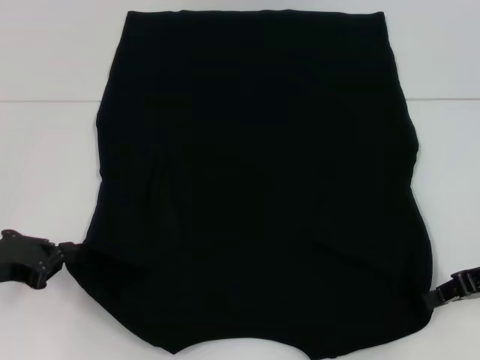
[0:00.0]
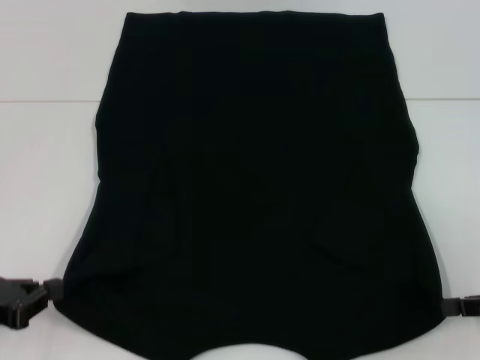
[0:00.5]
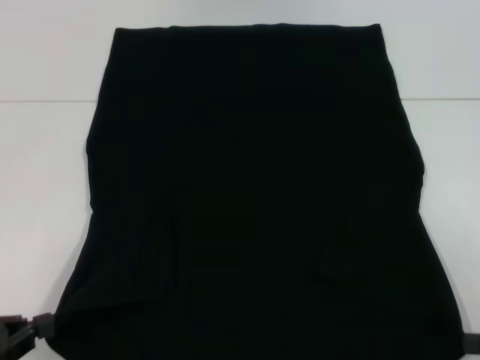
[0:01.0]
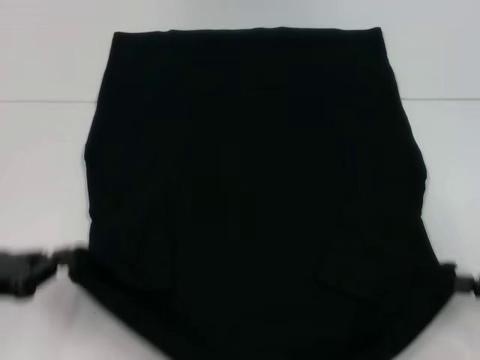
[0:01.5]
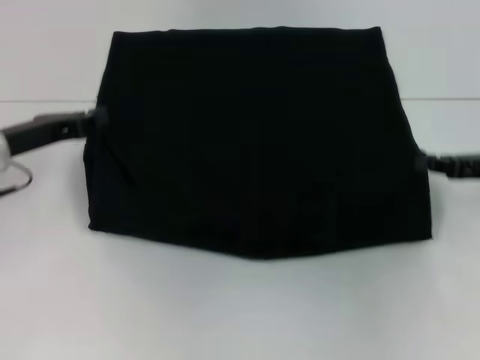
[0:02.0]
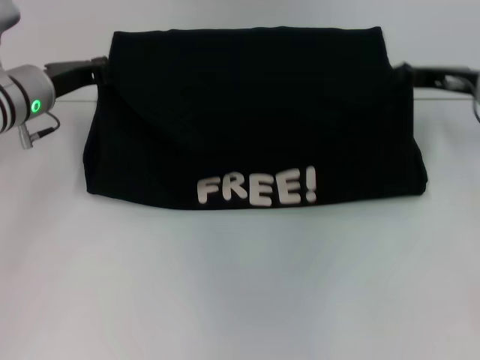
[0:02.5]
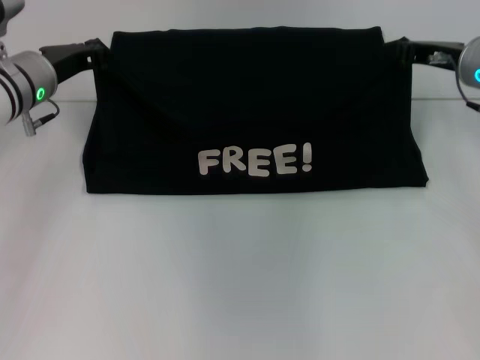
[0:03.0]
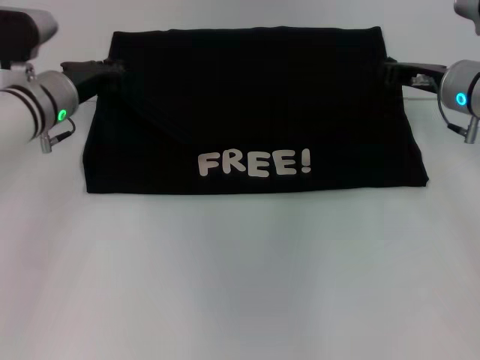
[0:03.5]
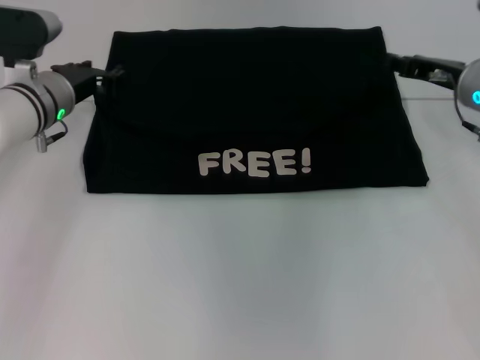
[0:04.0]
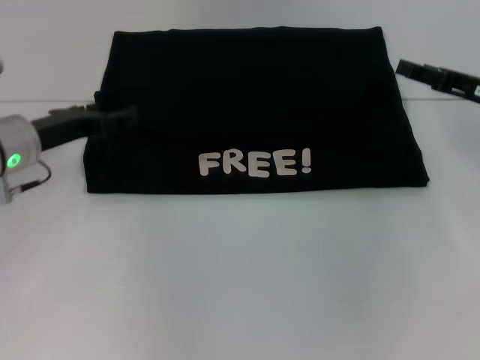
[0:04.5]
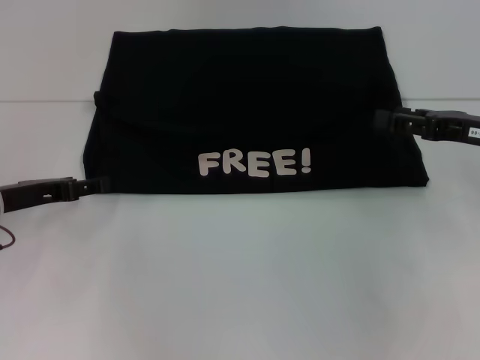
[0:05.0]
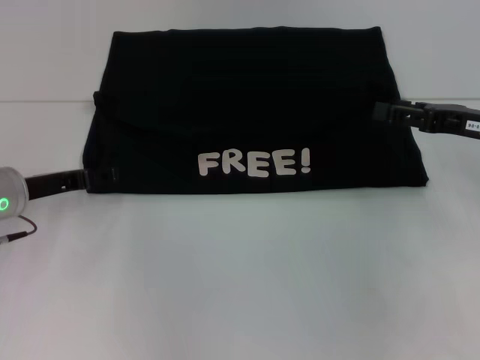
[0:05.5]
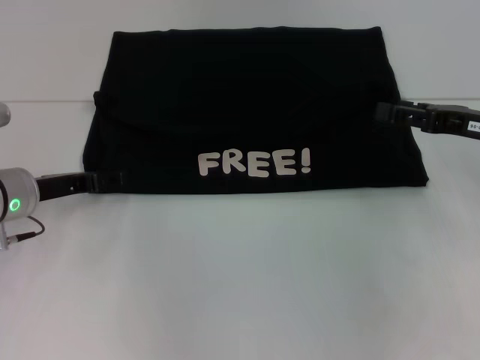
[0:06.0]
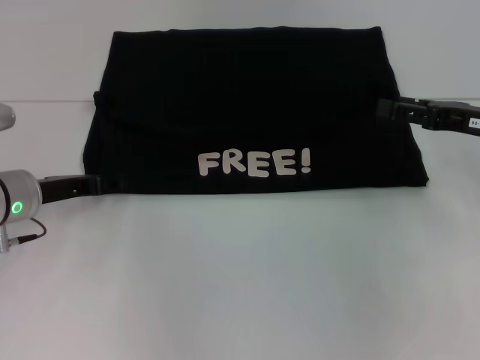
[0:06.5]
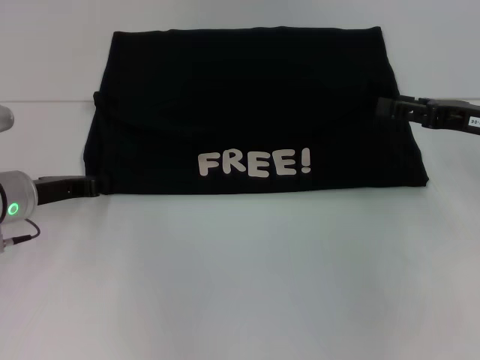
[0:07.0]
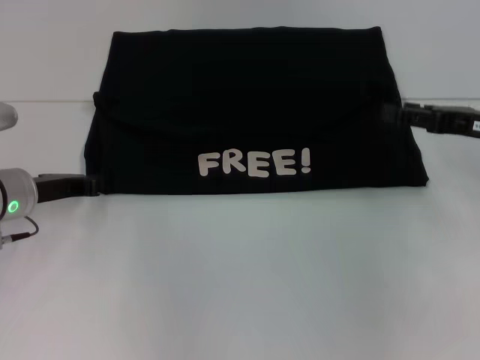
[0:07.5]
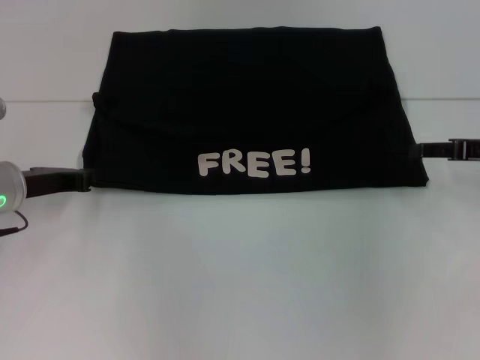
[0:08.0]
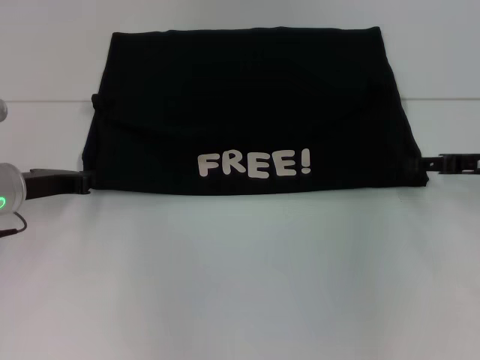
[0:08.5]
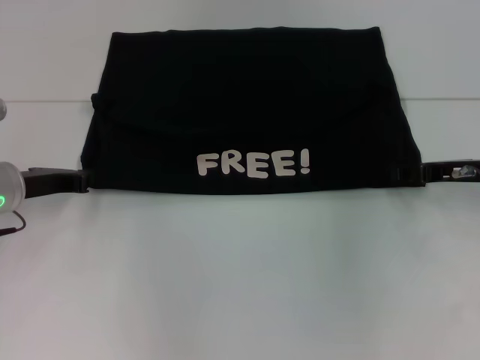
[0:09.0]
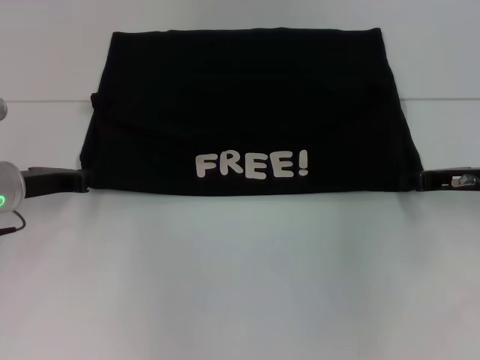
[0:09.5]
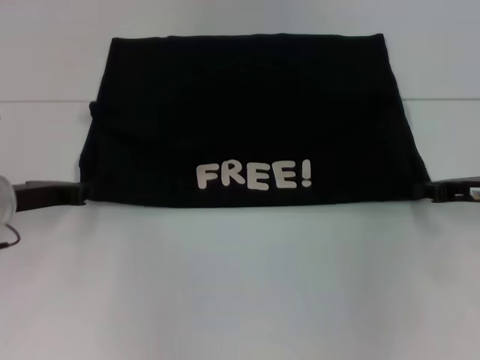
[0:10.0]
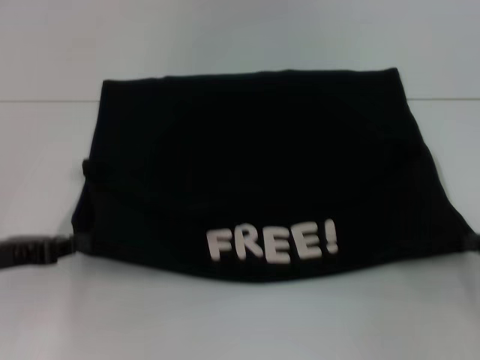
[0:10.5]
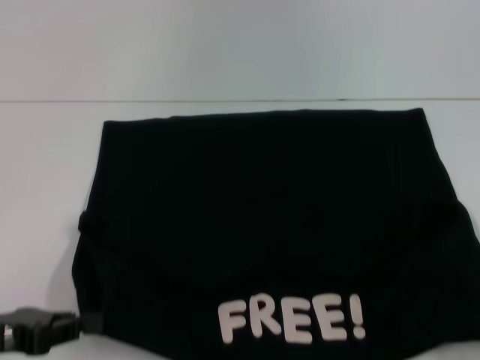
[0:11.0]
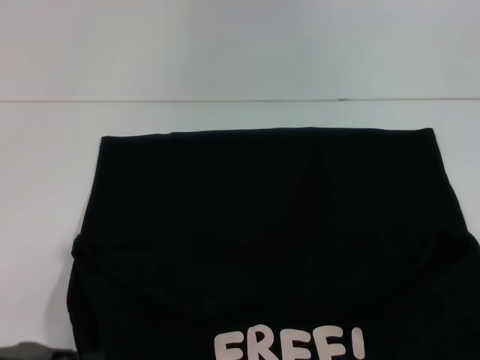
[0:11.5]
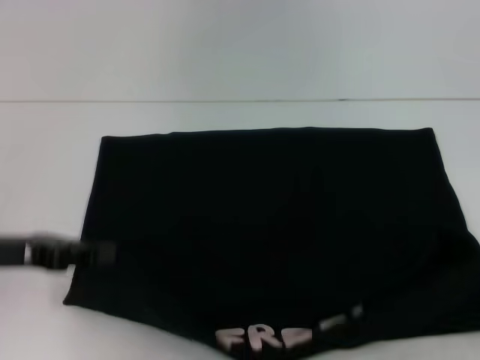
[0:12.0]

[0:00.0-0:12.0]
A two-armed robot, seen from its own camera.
Step, 0.0 to 4.0 s: Fold the clothes with your left hand.
Step, 0.0 to 4.0 s: Fold the clothes with your right hand.
Step, 4.5 to 11.0 s: Pull the clothes with your left hand.
Step, 4.5 to 11.0 s: Pull the clothes with your right hand.
0.0 to 2.0 s: The right gripper goes backward and returns, approximately 10 cm each way. The left gripper shifts approximately 10 cm forward.
2.0 to 4.0 s: The right gripper shifts about 10 cm forward and to the left, and opens its fingers. The left gripper travels forward and to the right by some 10 cm, and opens.
4.0 to 6.0 s: The grippers both shift backward by approximately 10 cm. The left gripper opens up.
6.0 to 8.0 s: The left gripper closes up.
8.0 to 10.0 s: The right gripper shifts by roughly 5 cm, and closes.
10.0 to 12.0 s: The left gripper heads backward, covering approximately 10 cm, while the right gripper travels backward and to the right by about 15 cm.

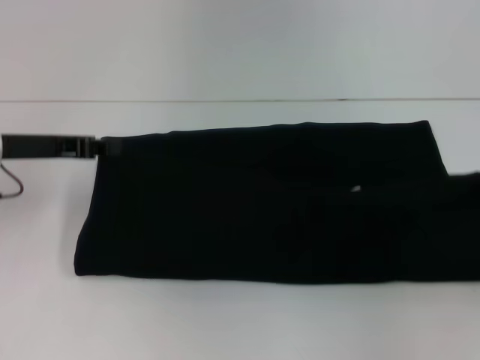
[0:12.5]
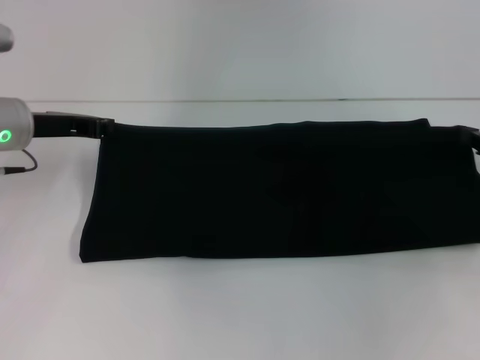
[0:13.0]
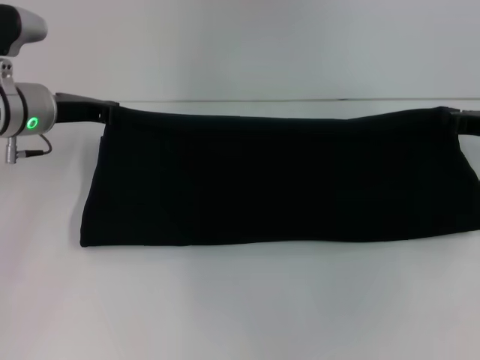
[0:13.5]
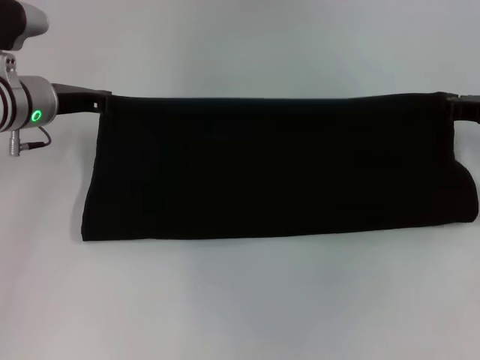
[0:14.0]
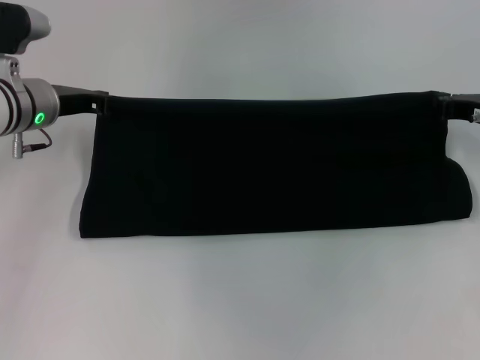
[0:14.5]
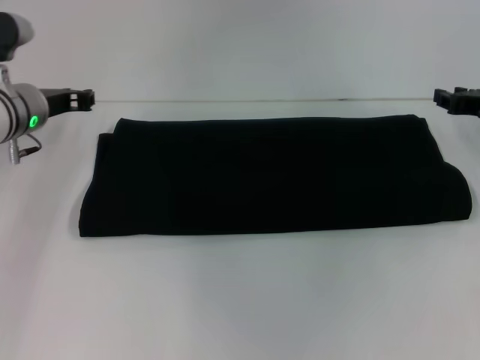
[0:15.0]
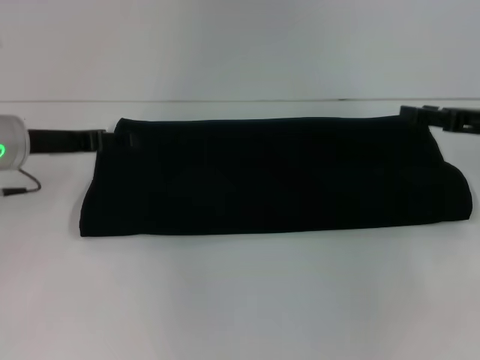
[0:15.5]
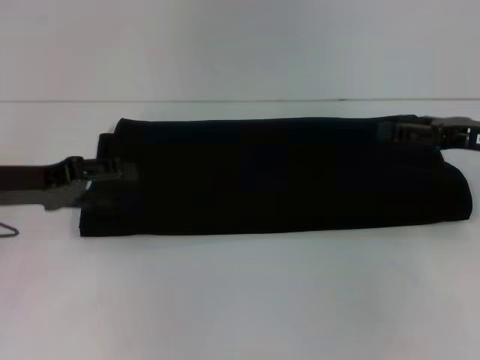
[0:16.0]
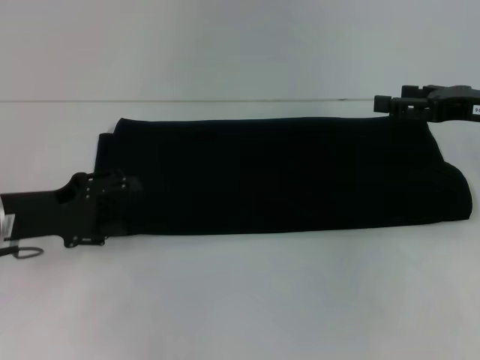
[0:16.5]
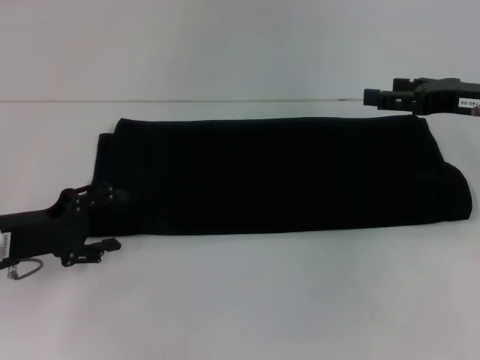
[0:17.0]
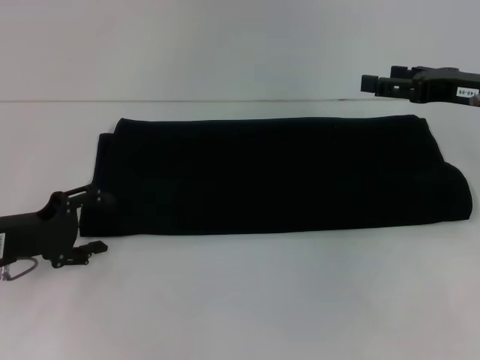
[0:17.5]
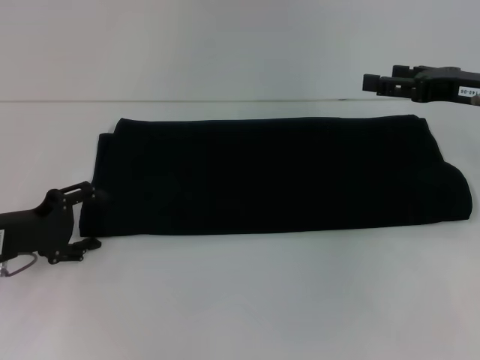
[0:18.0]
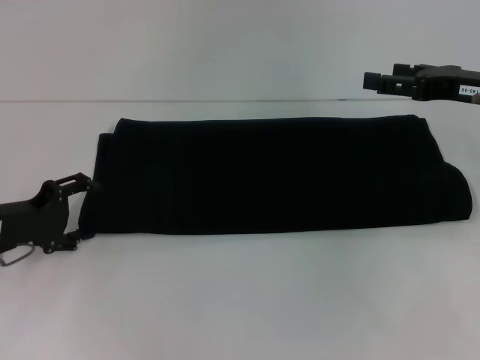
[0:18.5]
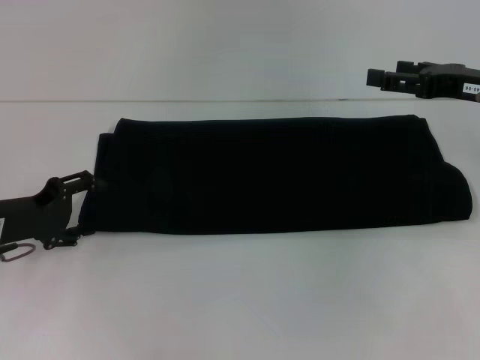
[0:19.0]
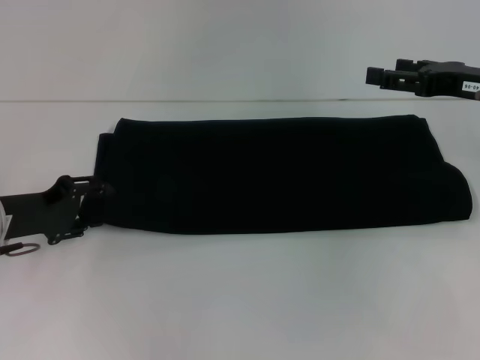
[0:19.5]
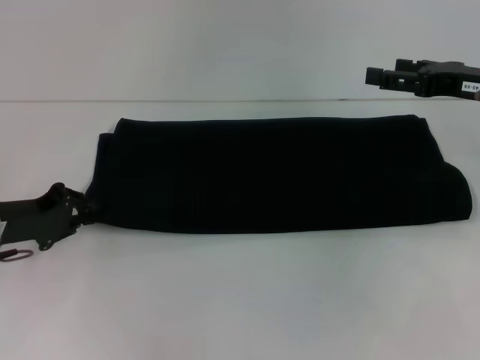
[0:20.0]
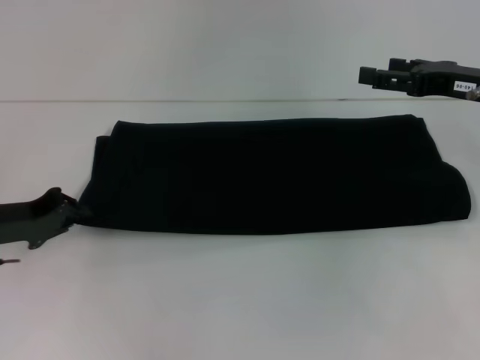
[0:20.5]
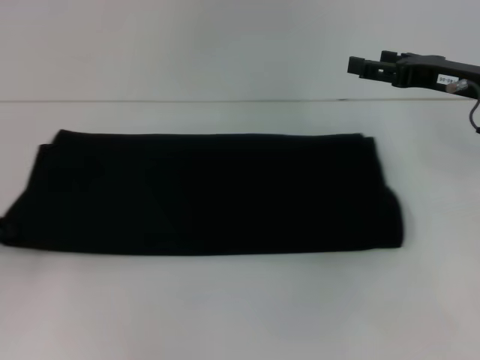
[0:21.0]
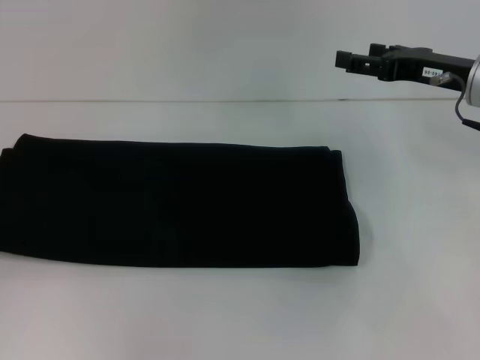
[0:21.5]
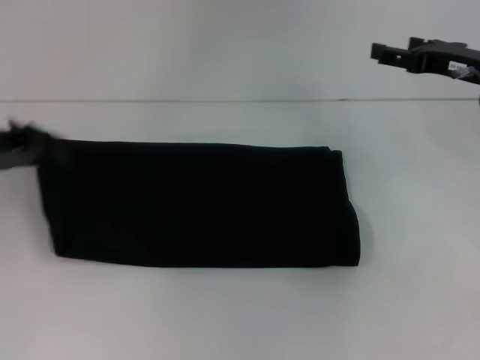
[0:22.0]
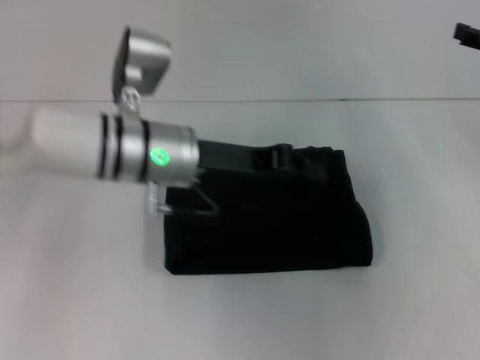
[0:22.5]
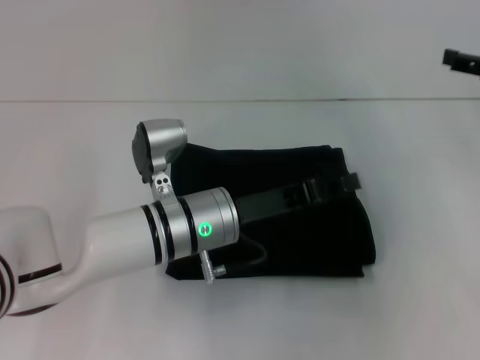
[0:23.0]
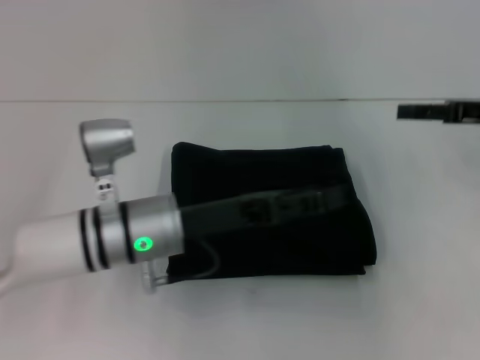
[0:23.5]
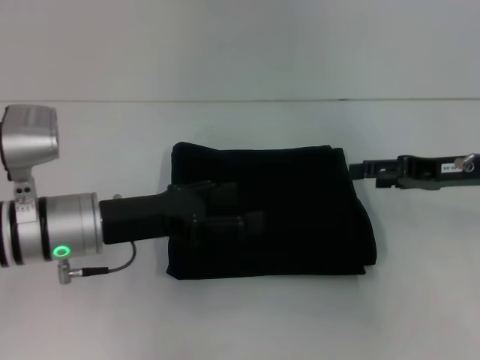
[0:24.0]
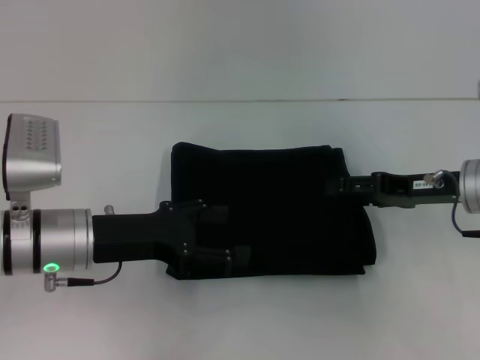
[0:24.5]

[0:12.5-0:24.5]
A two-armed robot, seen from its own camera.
Step, 12.5 to 15.0 s: Fold the clothes with your right hand.
Step, 12.5 to 23.0 s: Fold the clothes with your left hand.
12.5 to 14.5 s: The left gripper heads forward, covering some 5 cm. Meanwhile the right gripper is displaced forward and to the left by some 15 cm.
14.5 to 16.5 s: The left gripper shifts about 10 cm backward, and opens up; the right gripper changes place by roughly 5 cm, and opens.
18.5 to 20.5 s: The left gripper closes its fingers.
20.5 to 22.5 s: The left gripper shifts approximately 20 cm to the right, while the right gripper goes some 5 cm to the right.
22.5 to 24.5 s: The right gripper heads to the left and downward, covering about 10 cm. The left gripper shifts roughly 10 cm to the left, backward and downward, and opens up.

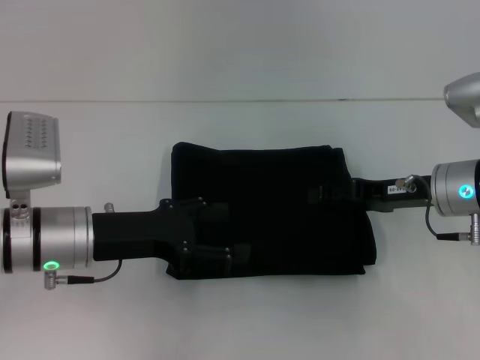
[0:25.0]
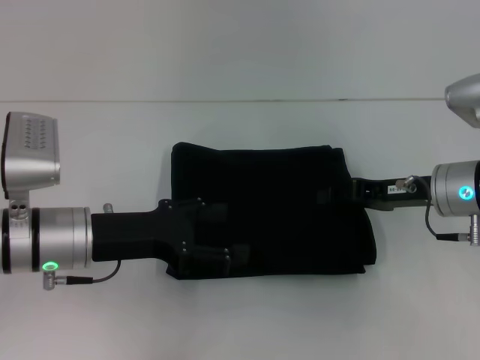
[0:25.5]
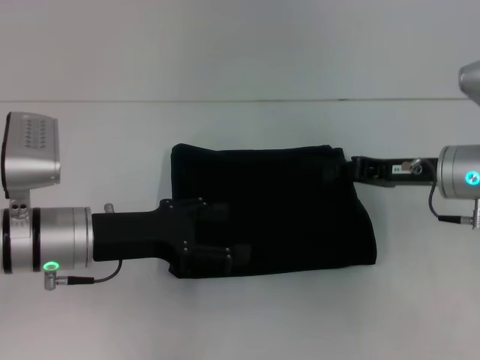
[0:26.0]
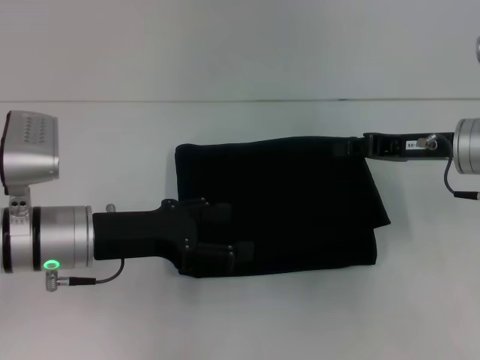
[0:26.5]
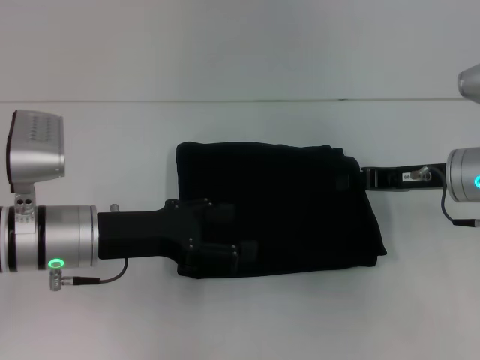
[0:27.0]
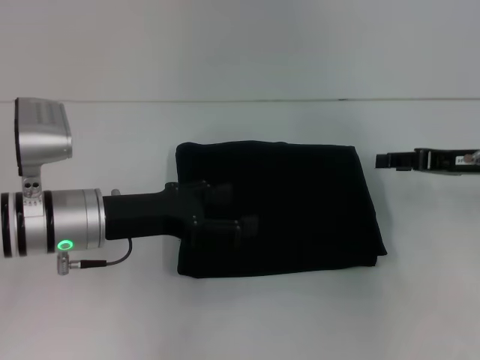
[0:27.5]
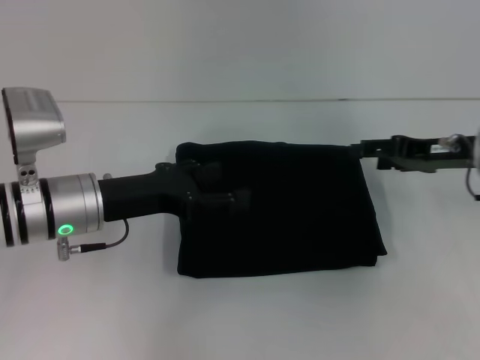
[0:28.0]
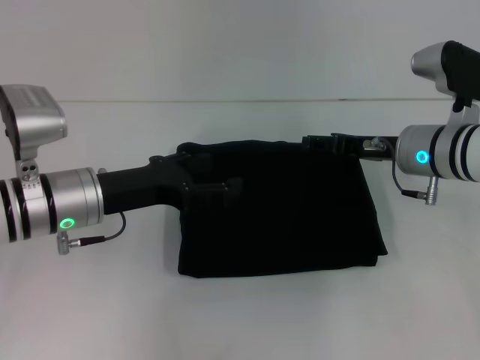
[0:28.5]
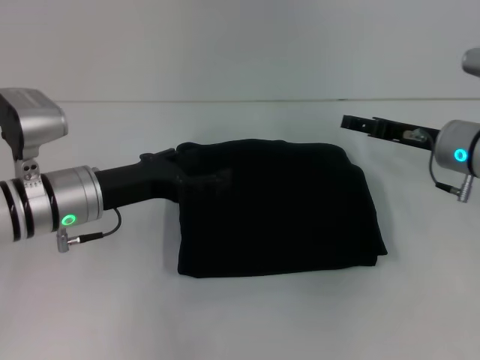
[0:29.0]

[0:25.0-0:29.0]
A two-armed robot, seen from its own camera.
25.0 to 27.0 s: The right gripper closes.
27.0 to 29.0 s: The right gripper moves left and right over roughly 10 cm, changing direction 2 times, and opens up.
